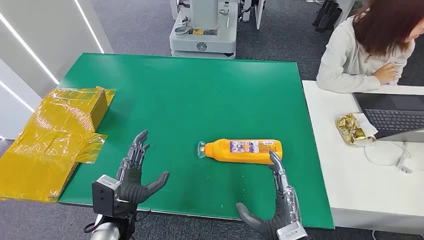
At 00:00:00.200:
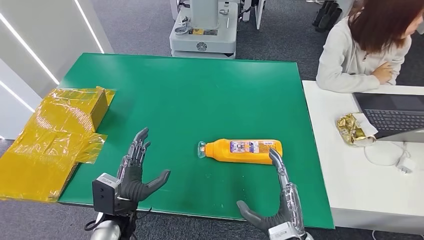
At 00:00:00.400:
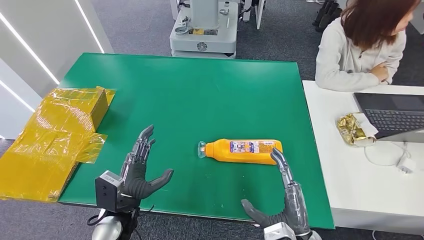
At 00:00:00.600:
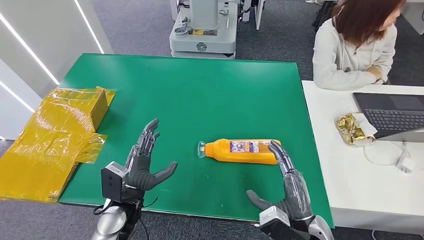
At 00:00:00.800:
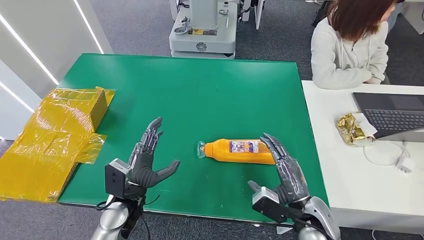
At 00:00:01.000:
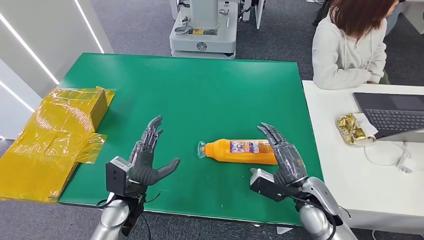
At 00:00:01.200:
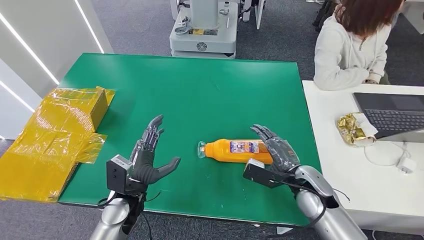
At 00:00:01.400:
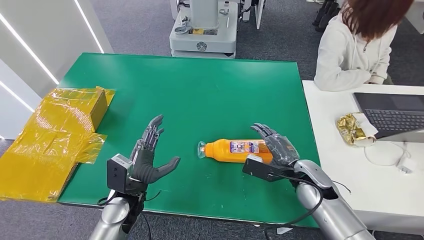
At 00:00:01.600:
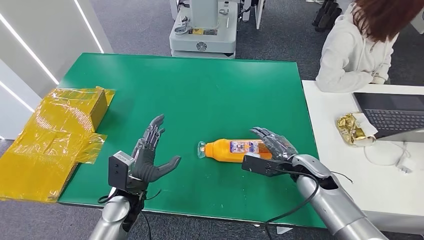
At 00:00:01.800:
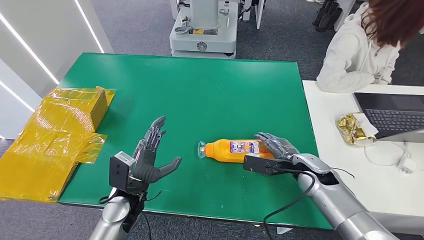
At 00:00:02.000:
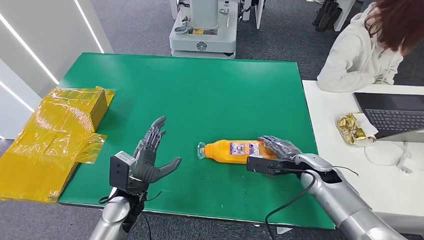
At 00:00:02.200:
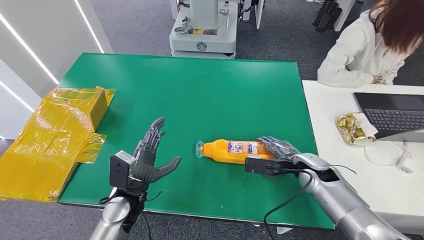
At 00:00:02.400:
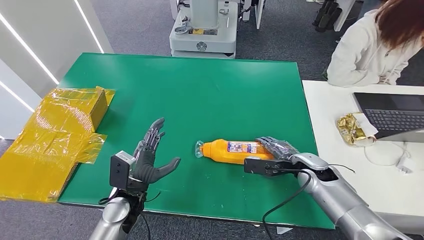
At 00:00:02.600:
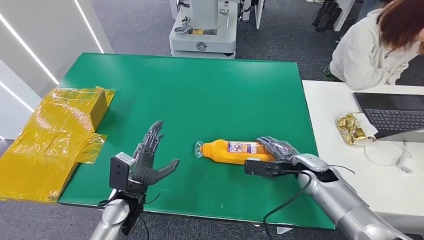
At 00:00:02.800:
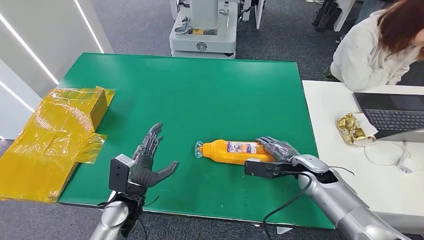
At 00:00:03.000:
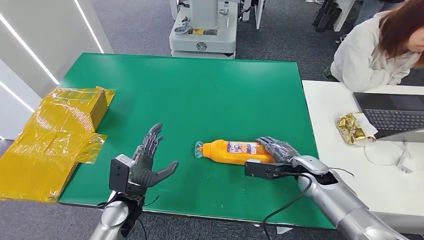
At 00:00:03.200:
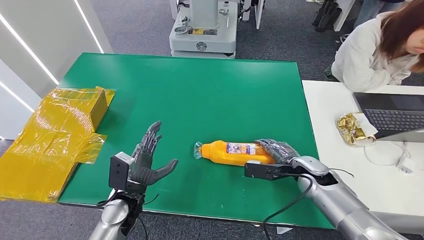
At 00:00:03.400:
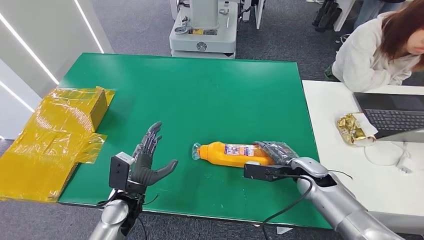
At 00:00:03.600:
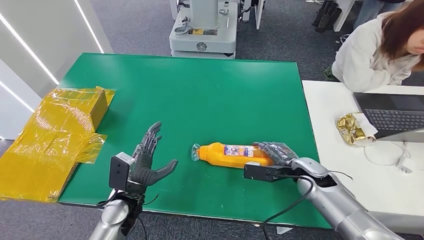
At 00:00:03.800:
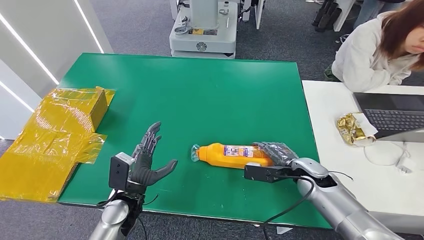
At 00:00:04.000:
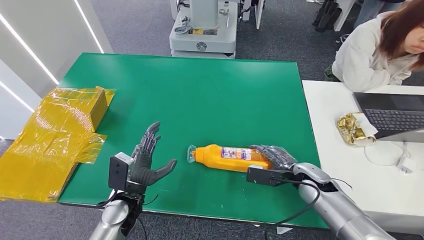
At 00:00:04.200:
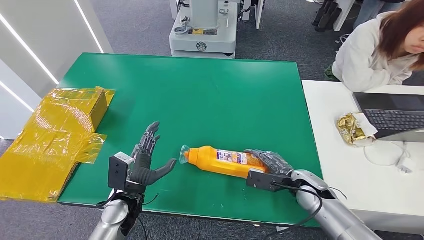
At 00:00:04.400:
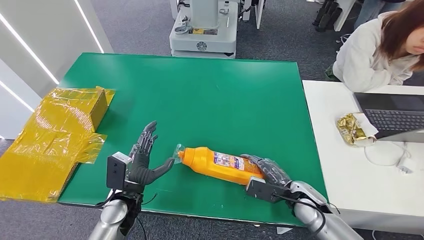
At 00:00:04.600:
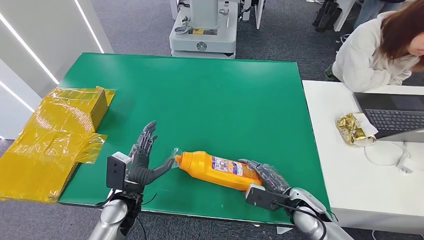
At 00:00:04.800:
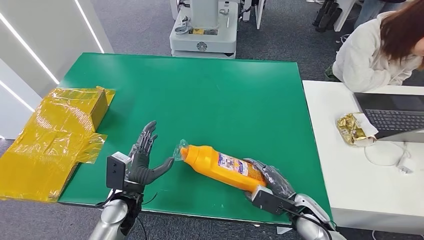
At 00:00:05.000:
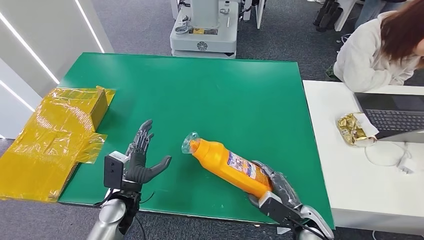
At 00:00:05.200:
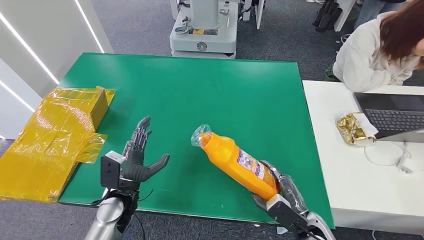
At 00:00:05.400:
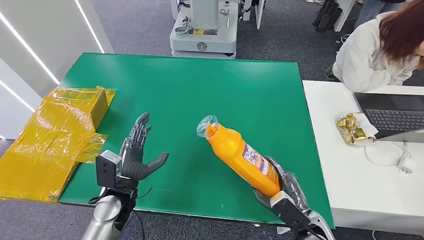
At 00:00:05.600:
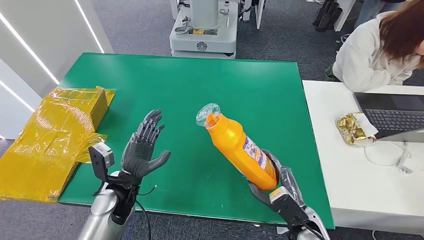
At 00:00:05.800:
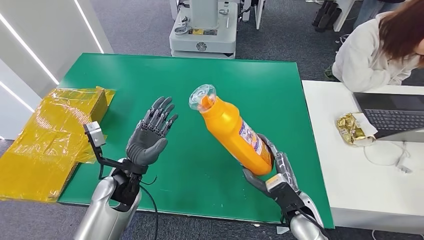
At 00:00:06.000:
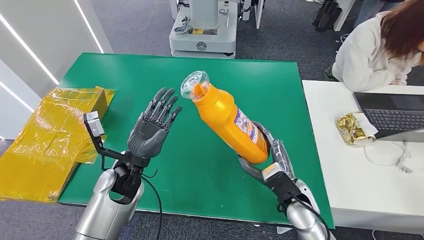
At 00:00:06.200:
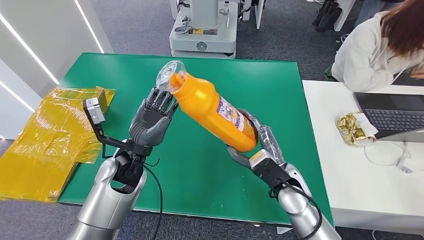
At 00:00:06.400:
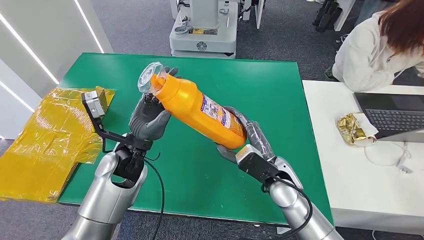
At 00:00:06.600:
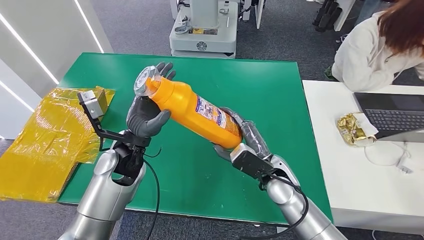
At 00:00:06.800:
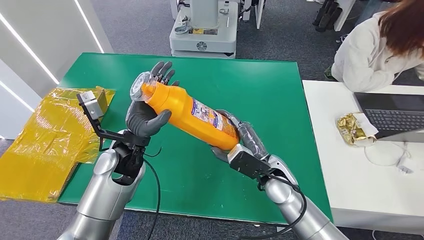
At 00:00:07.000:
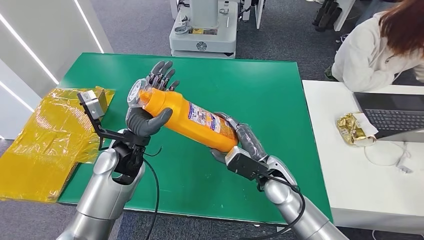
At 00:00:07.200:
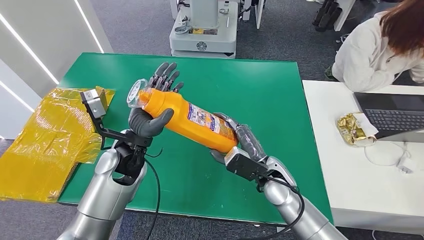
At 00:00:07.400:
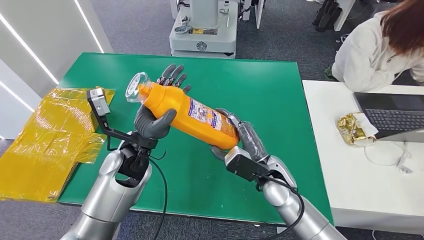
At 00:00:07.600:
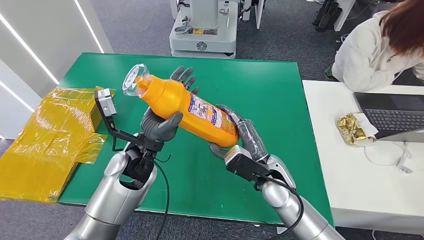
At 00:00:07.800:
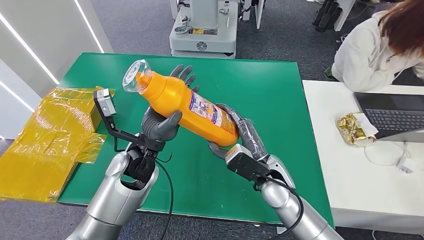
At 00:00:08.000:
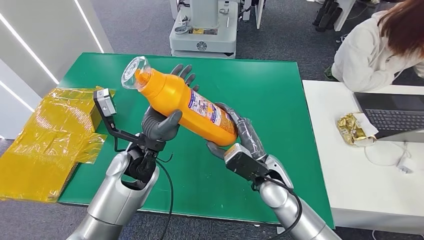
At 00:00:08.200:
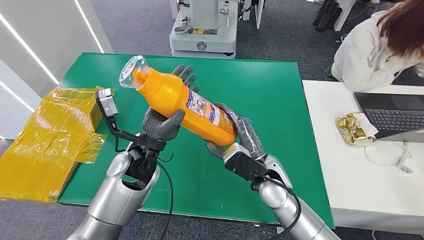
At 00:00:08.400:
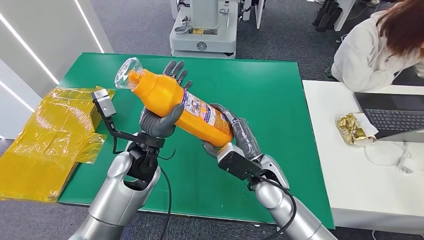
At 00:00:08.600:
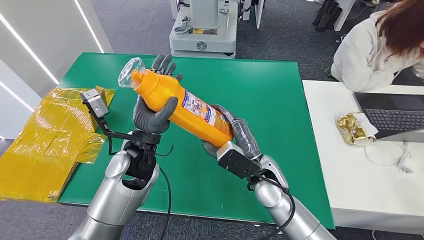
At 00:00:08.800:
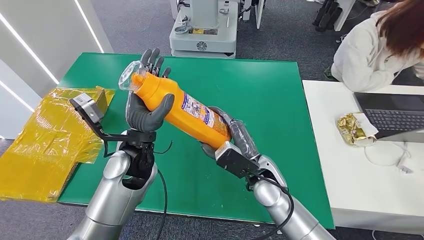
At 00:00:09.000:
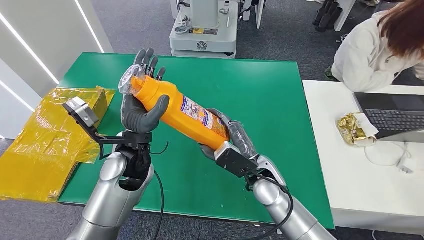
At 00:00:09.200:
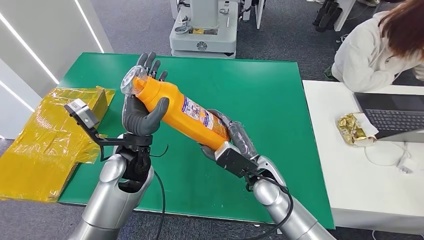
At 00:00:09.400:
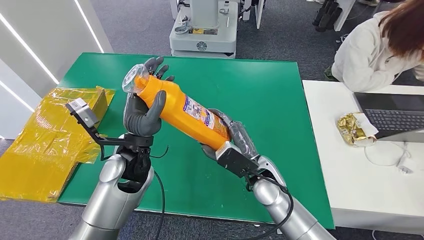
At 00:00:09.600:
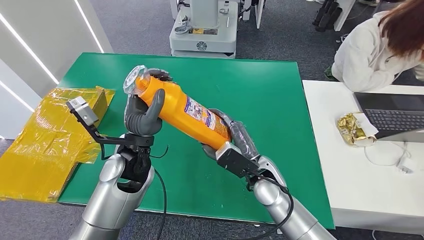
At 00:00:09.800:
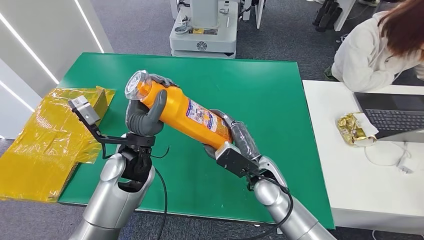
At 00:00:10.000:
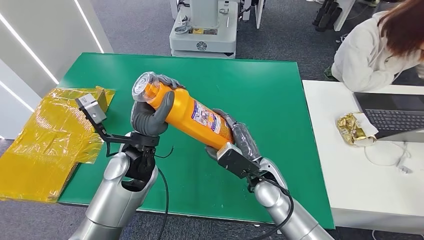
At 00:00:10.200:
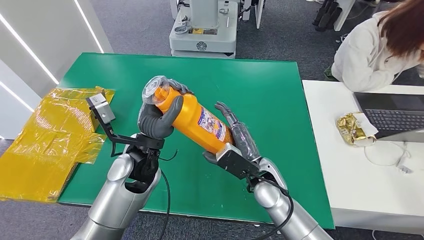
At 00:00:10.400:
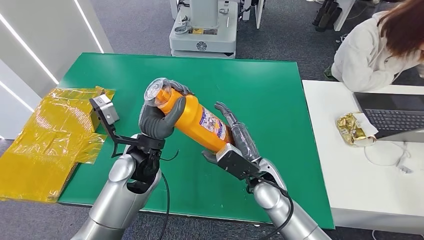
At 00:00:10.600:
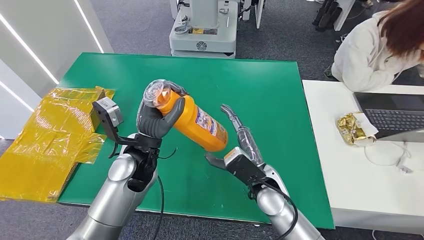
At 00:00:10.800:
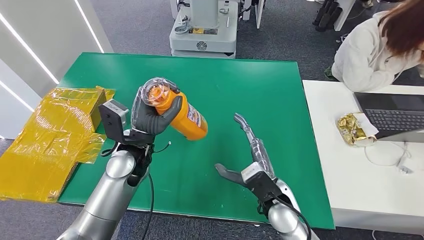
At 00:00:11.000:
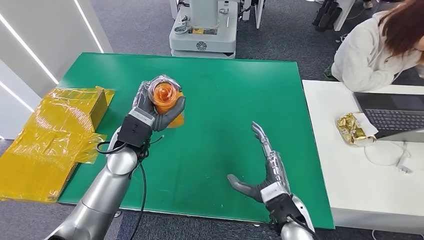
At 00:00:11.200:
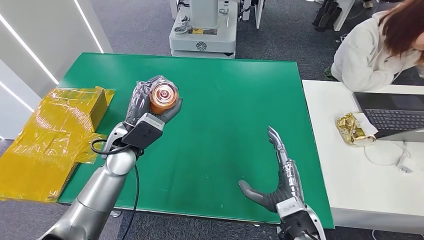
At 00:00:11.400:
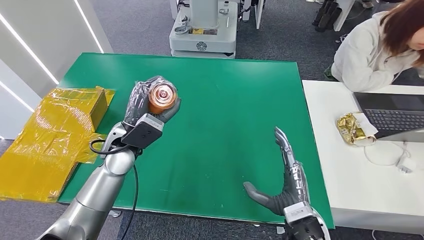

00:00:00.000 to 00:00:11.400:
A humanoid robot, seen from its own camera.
Step, 00:00:00.000 to 00:00:05.400: Pick up the bottle from the table.
00:00:04.200 to 00:00:05.600: The right hand is displaced backward by some 10 cm.
00:00:05.600 to 00:00:07.200: The right hand heads forward, to the left and upward, covering some 15 cm; the left hand shifts roughly 10 cm upward and forward.
00:00:07.200 to 00:00:10.000: There are only small adjustments of the hands.
00:00:10.000 to 00:00:11.400: The right hand travels backward and to the right by about 15 cm. Meanwhile the left hand is displaced to the left by approximately 5 cm.

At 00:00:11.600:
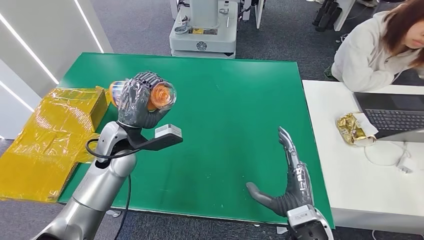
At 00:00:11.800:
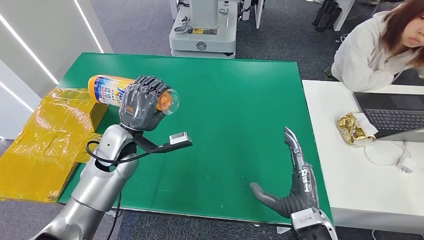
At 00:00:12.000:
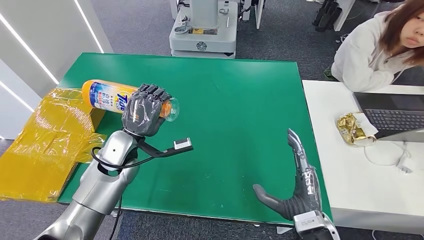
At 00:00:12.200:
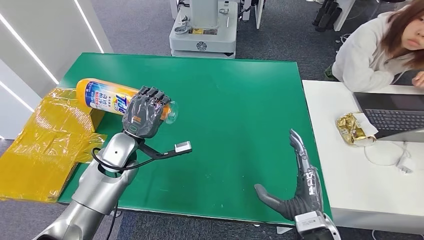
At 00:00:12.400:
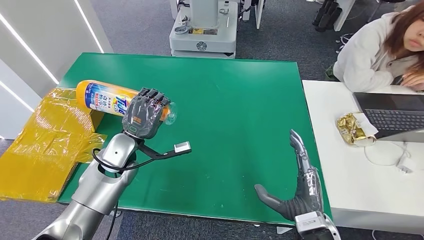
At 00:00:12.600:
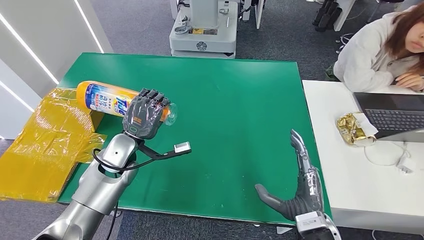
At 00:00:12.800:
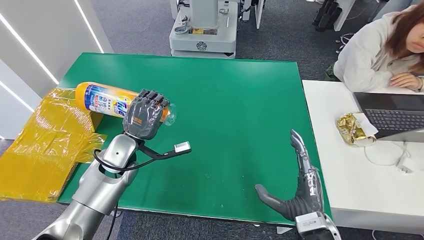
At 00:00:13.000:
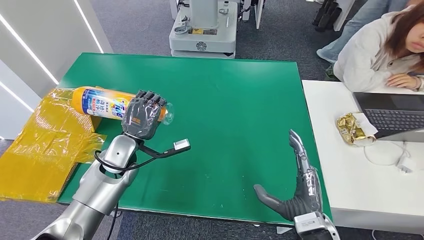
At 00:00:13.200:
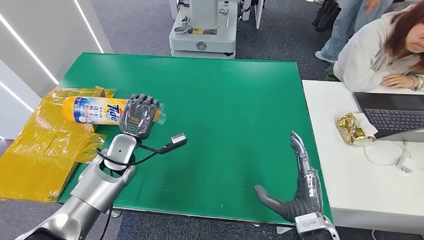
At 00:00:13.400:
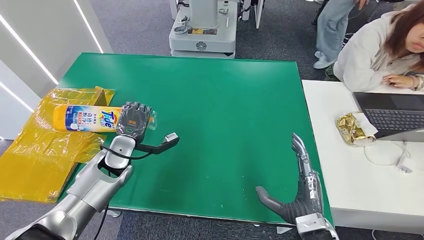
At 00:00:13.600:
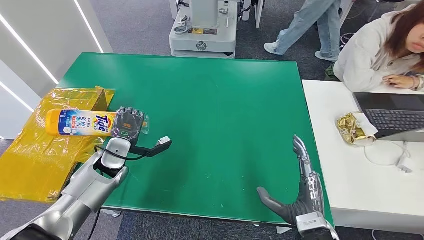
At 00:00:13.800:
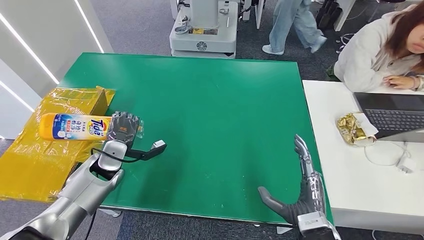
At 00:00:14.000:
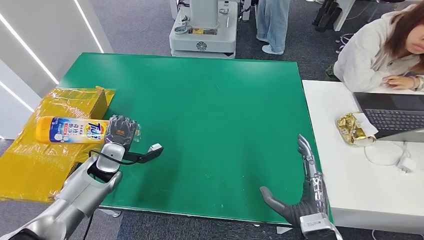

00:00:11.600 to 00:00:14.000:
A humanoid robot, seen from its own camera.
Step, 00:00:11.600 to 00:00:14.000: Turn the bottle to the front side.
00:00:11.600 to 00:00:12.800: The left hand shifts about 5 cm downward.
00:00:12.800 to 00:00:14.000: The left hand is displaced to the left and downward by some 10 cm.
